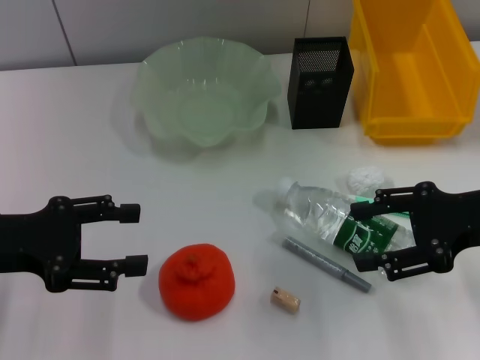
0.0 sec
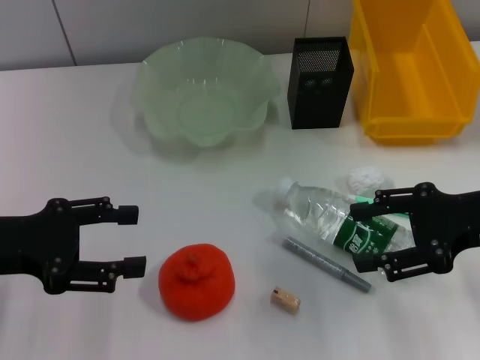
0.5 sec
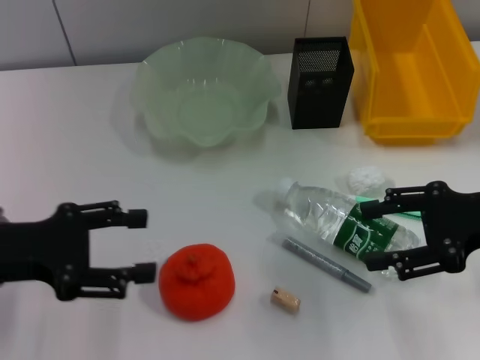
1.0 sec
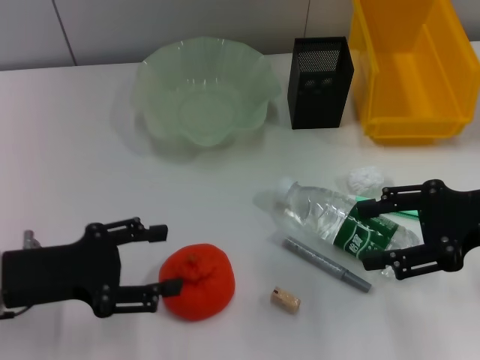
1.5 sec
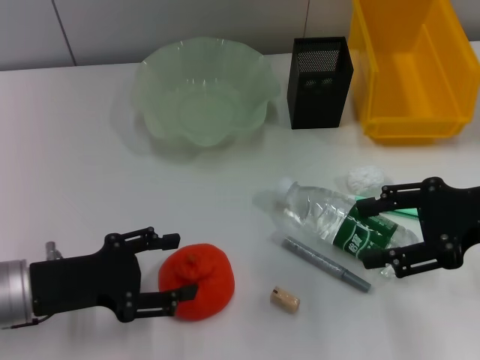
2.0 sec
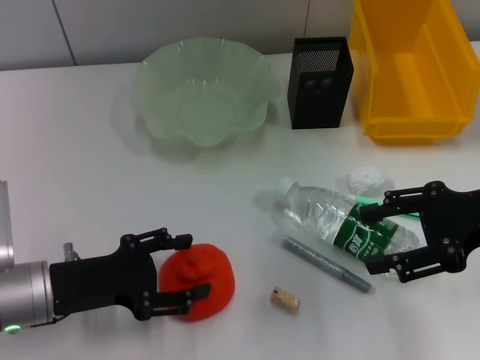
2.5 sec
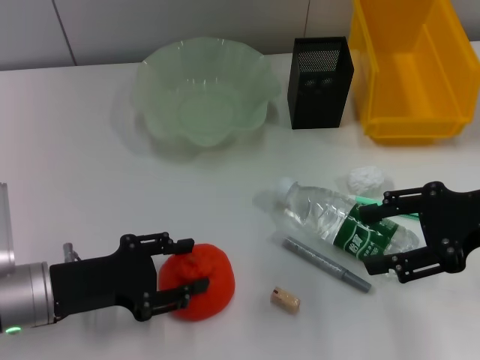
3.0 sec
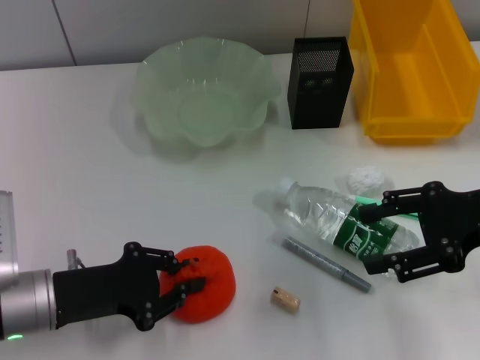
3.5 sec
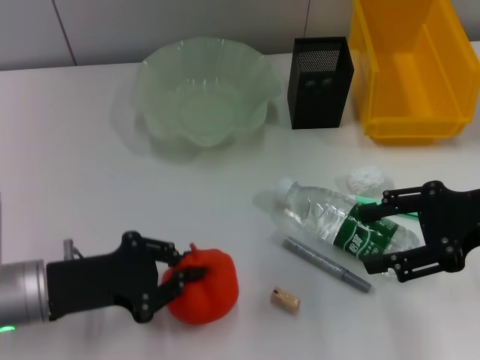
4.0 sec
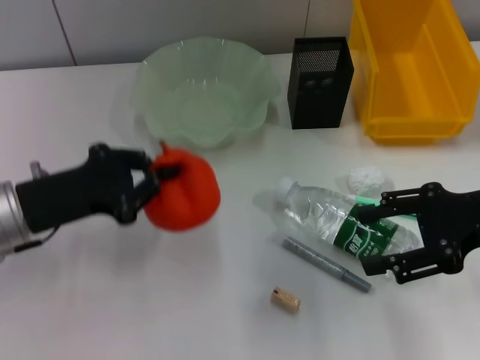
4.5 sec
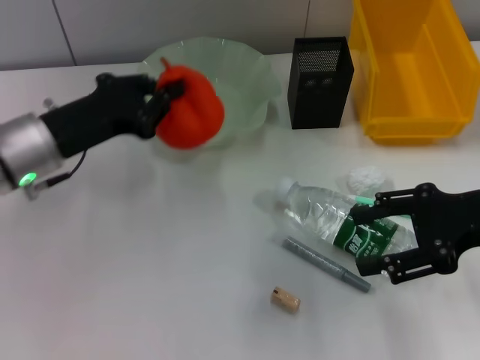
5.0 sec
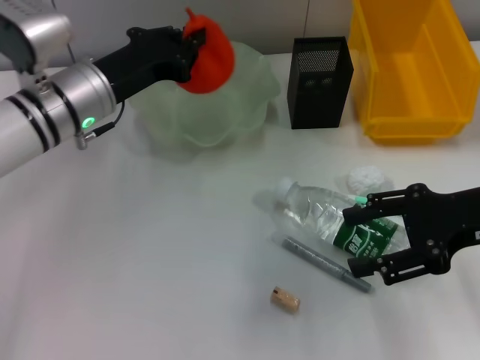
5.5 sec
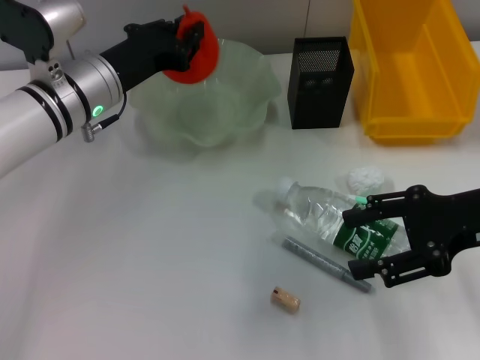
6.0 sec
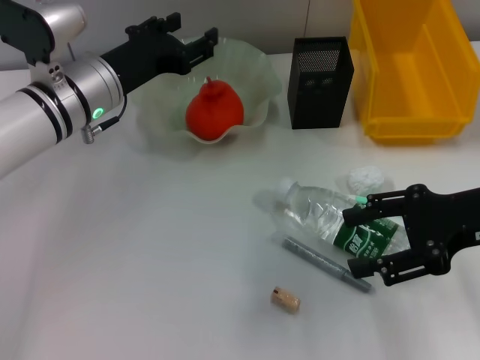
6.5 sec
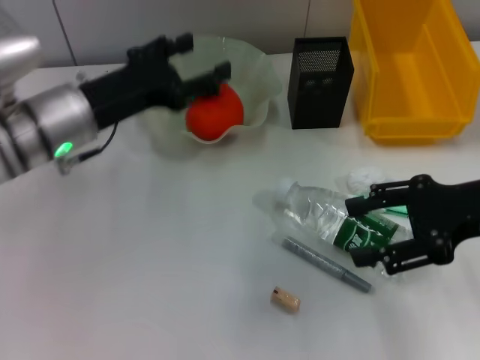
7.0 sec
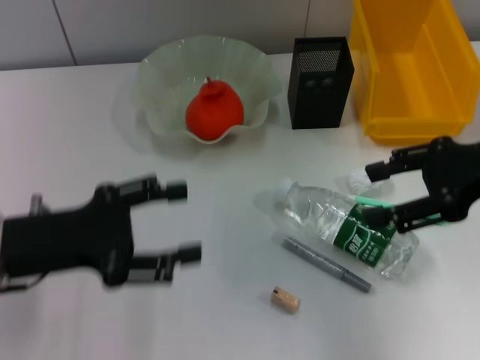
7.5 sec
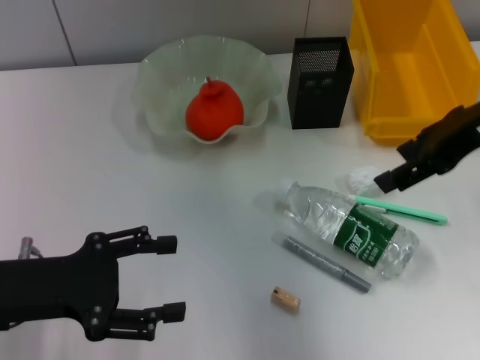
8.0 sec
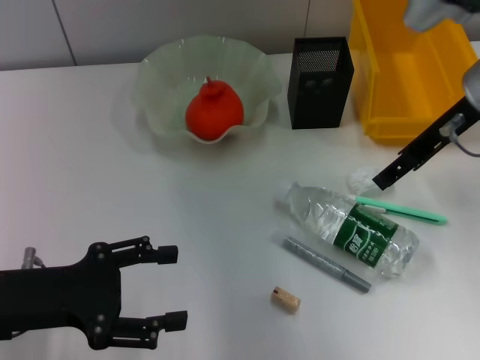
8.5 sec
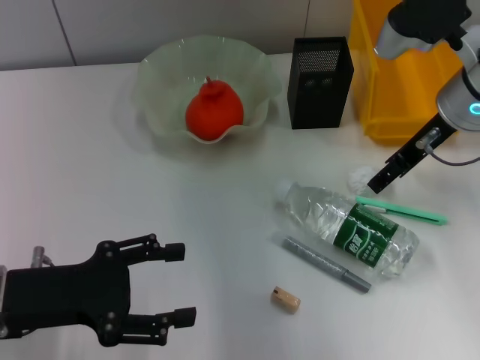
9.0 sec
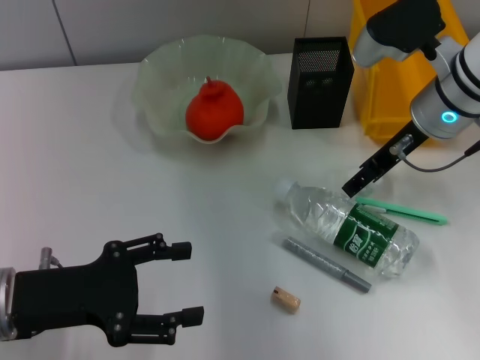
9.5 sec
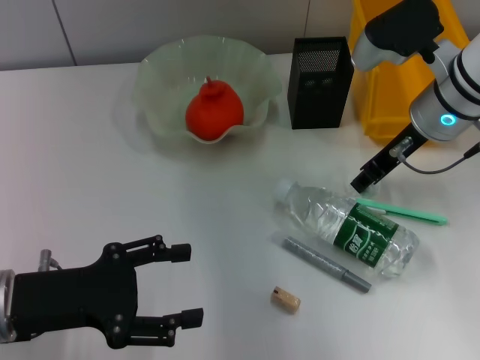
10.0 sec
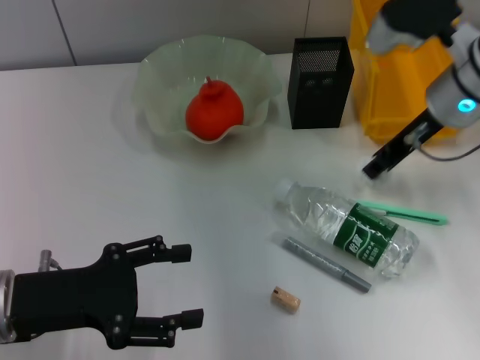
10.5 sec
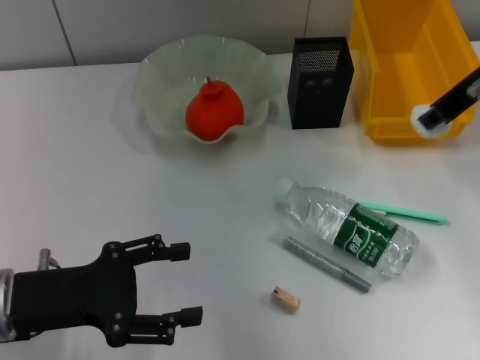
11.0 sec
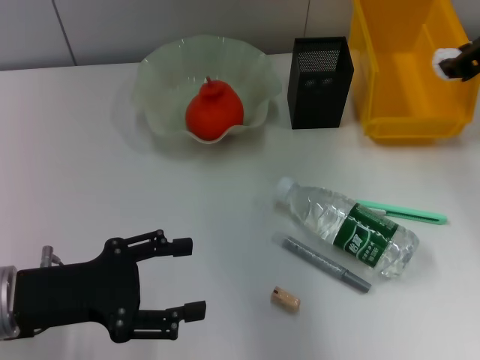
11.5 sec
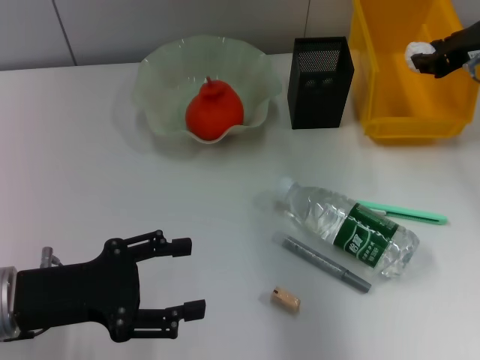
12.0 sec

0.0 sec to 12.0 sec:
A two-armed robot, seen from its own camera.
Step, 0.0 sec to 3.5 sec: Grab the orange with the left hand.
Step, 4.0 sec to 6.5 sec: Place the orange into the fruit bowl with the left hand.
Step, 7.0 sec to 10.0 sec: Grab the paper ball with the right hand.
0.0 sec to 2.0 sec: The left gripper shifts some 5 cm downward.
2.0 sec to 4.0 sec: The left gripper closes.
4.0 sec to 6.0 sec: The left gripper moves forward, to the right and upward, roughly 20 cm.
6.0 sec to 8.0 sec: The left gripper is displaced backward and to the left by some 20 cm, and opens up. Meanwhile the right gripper moves upward and forward, approximately 10 cm.
8.0 sec to 10.0 sec: The right gripper heads downward and forward, covering some 10 cm.
10.0 sec to 12.0 sec: The right gripper is displaced to the right by about 10 cm, and closes its fingers.

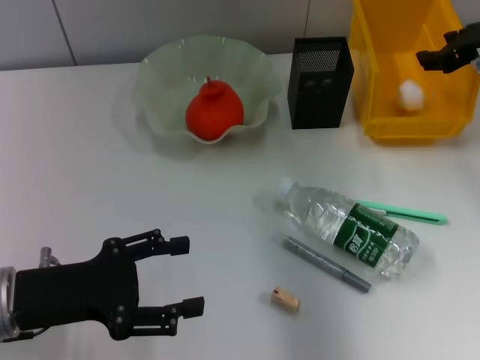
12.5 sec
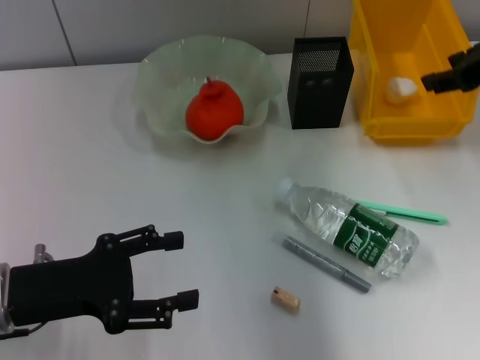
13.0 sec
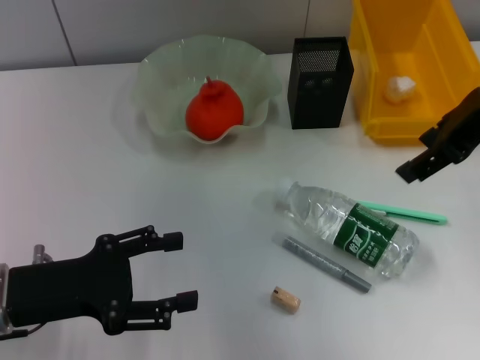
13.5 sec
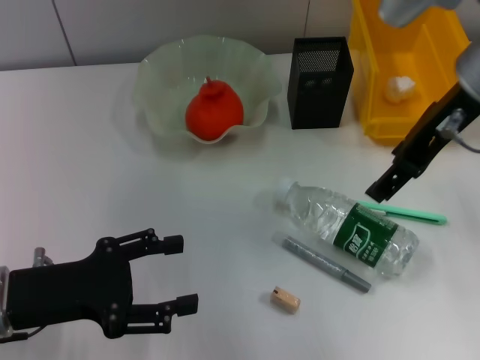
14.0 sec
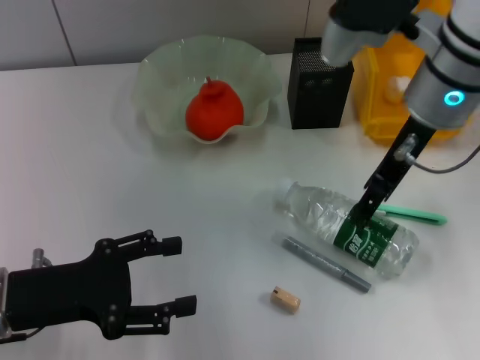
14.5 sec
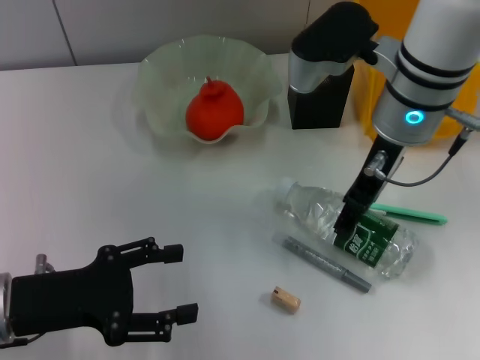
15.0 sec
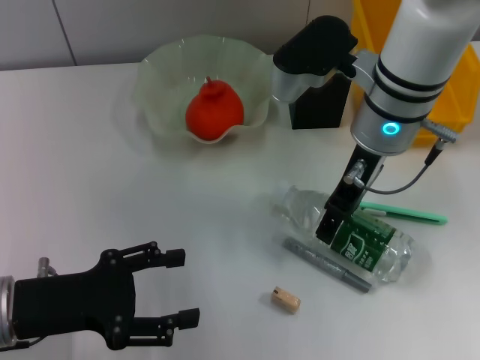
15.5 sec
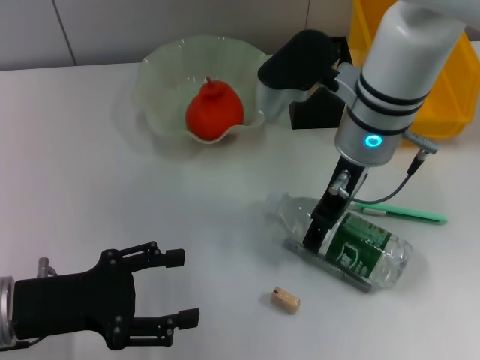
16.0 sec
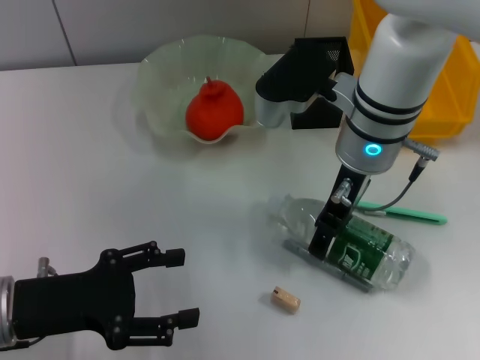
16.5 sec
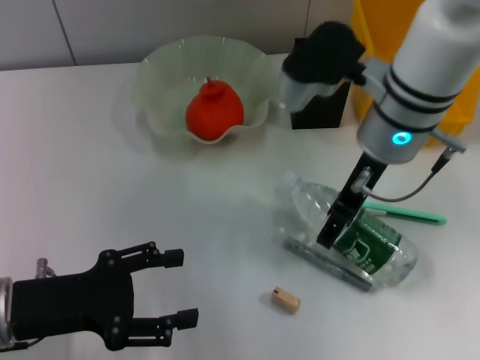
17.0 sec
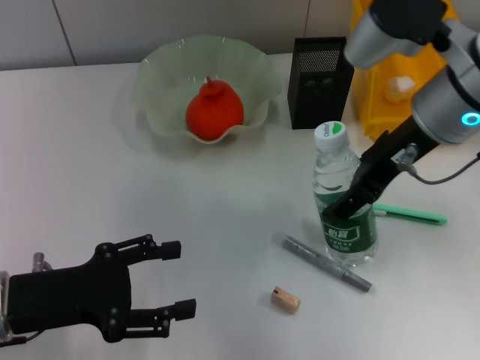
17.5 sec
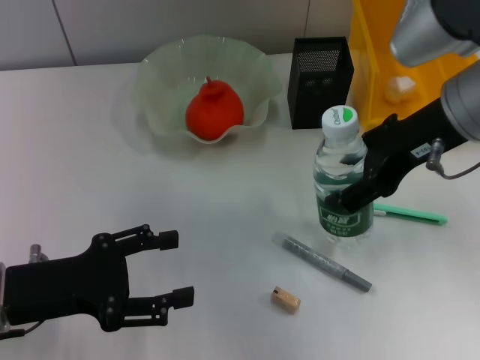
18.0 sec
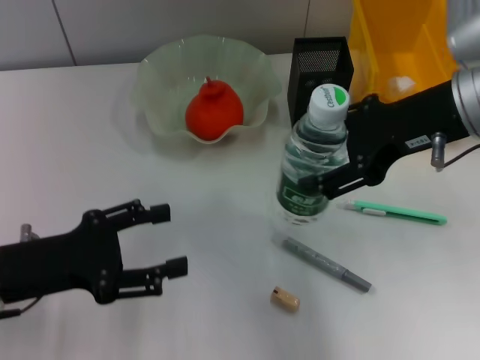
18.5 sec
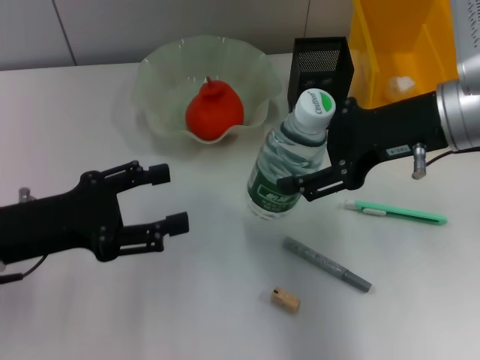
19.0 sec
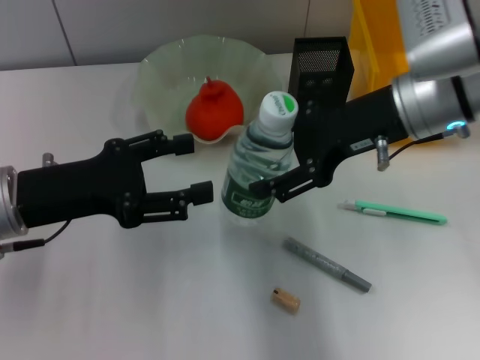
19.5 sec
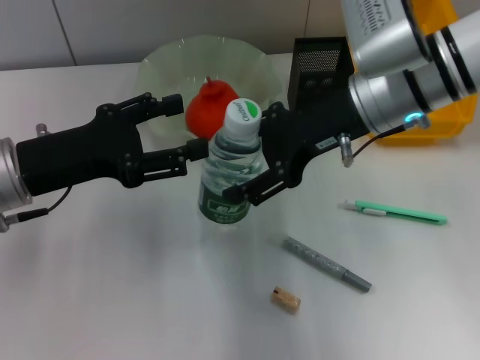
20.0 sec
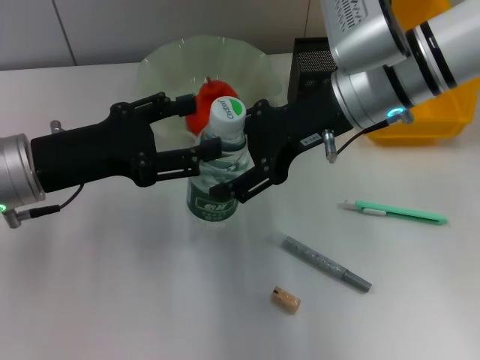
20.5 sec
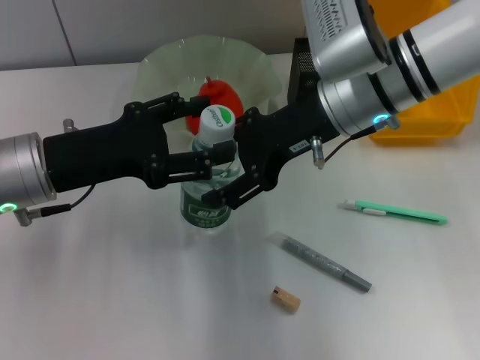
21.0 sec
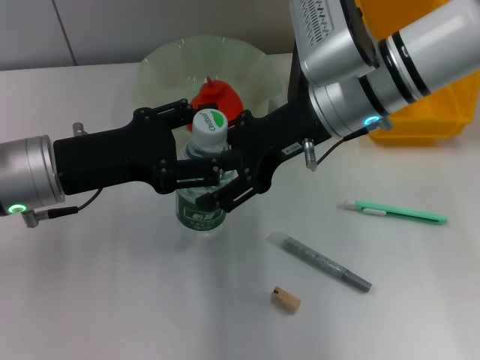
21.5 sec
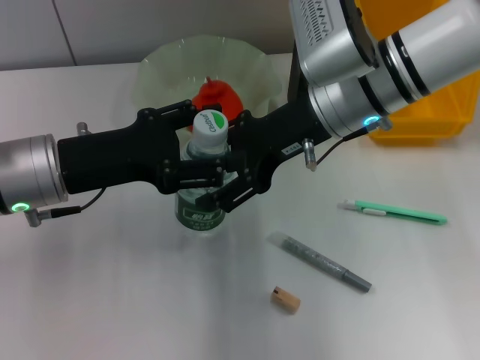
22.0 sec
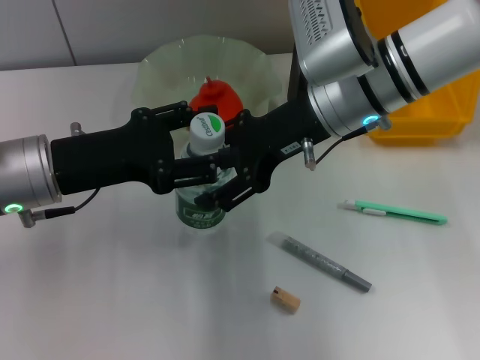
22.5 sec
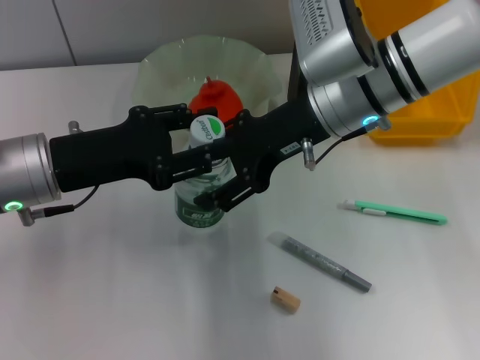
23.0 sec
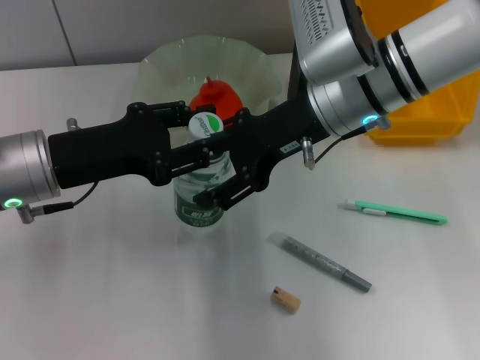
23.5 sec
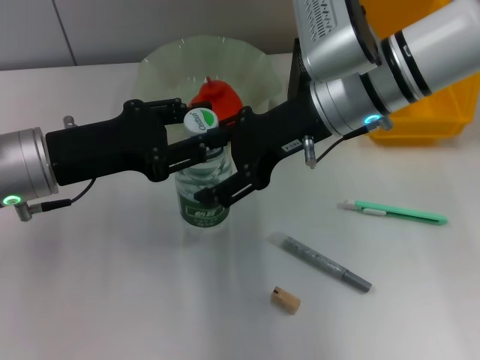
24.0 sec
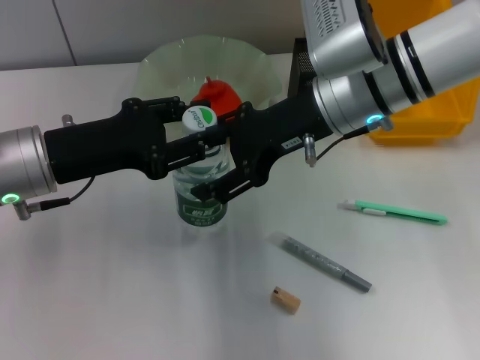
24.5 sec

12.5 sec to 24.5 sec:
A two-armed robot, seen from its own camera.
Step, 13.0 sec to 16.5 sec: Grab the water bottle with the right hand.
12.5 sec to 14.5 sec: The right gripper moves to the left, approximately 15 cm, and opens its fingers.
14.5 sec to 16.5 sec: The right gripper moves downward and to the left, some 10 cm.
16.5 sec to 18.5 sec: The right gripper heads to the right, upward and backward, covering approximately 15 cm.
18.5 sec to 20.5 sec: The right gripper goes approximately 10 cm to the left and forward. The left gripper travels forward by some 5 cm.
20.5 sec to 22.5 sec: The grippers make only small movements.
22.5 sec to 24.5 sec: The left gripper closes its fingers.

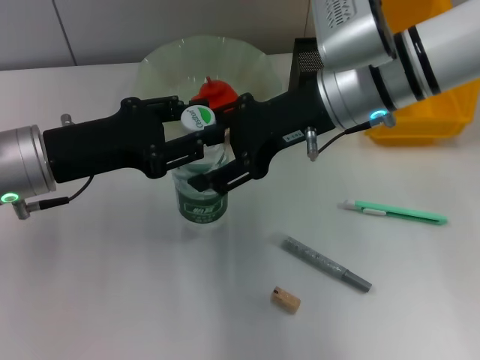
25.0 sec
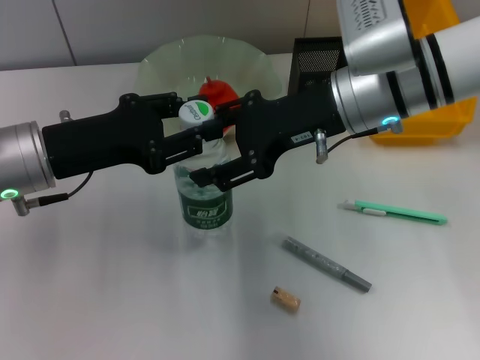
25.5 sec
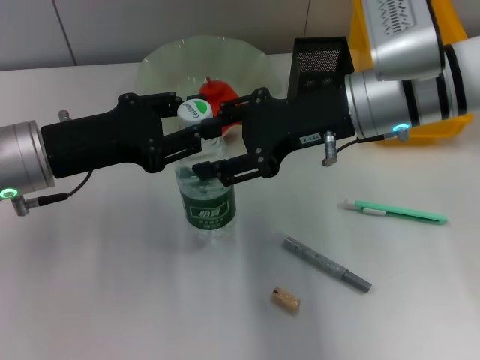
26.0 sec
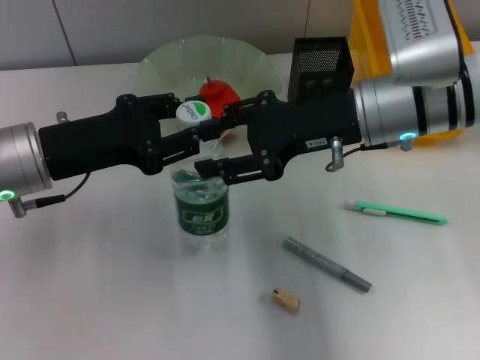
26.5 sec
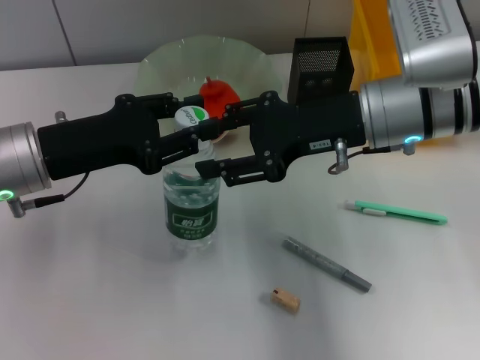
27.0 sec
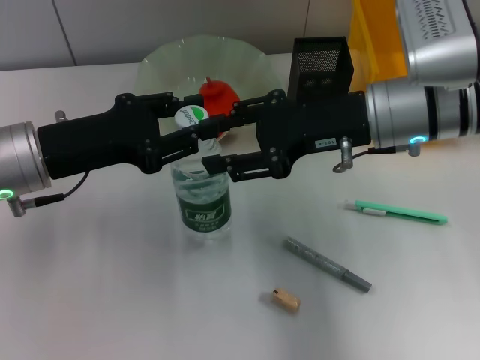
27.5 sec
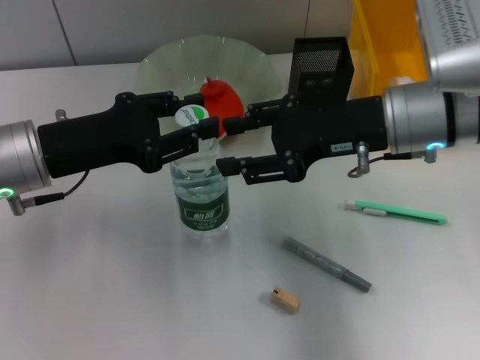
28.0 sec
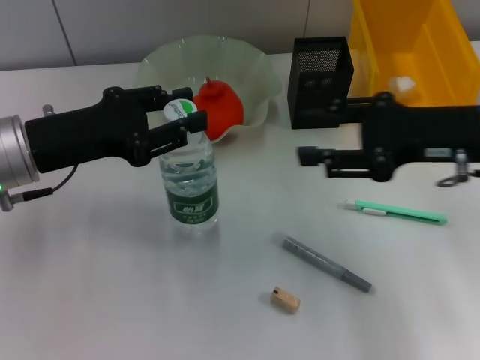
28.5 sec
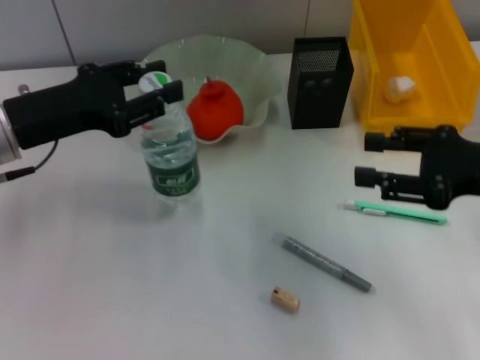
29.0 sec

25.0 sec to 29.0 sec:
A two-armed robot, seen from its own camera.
Step, 25.0 sec to 27.5 sec: Pass the water bottle from the right hand to the left hand.
27.0 sec to 29.0 sec: The right gripper goes some 15 cm to the right and backward.
